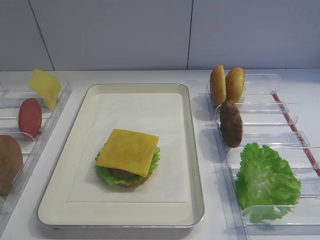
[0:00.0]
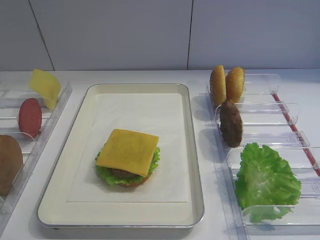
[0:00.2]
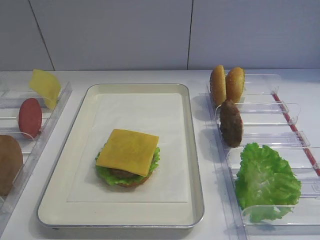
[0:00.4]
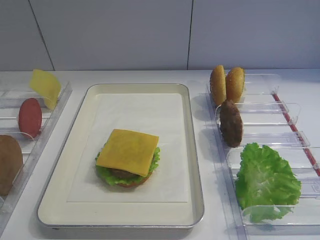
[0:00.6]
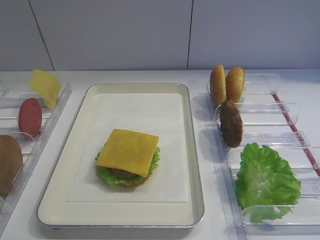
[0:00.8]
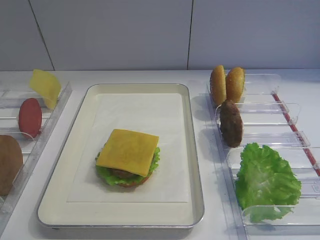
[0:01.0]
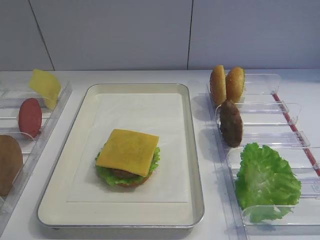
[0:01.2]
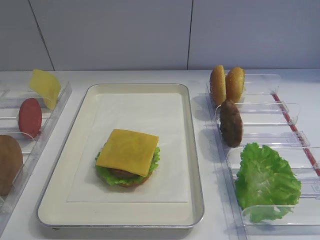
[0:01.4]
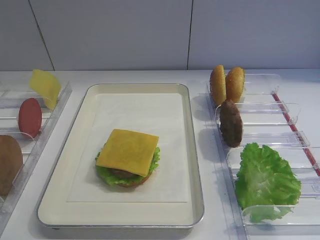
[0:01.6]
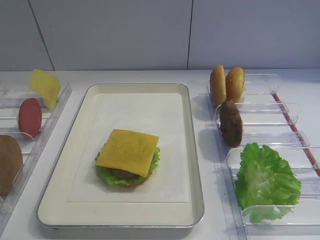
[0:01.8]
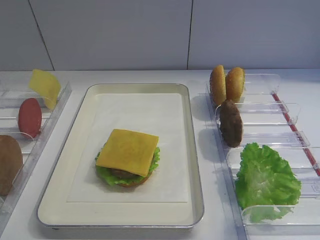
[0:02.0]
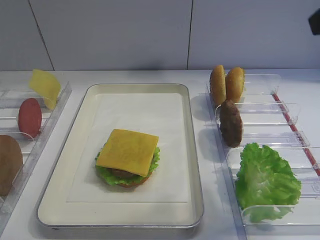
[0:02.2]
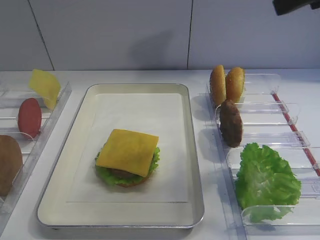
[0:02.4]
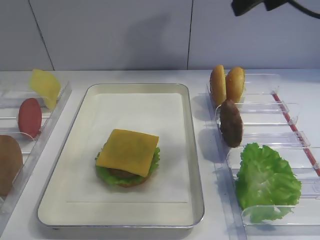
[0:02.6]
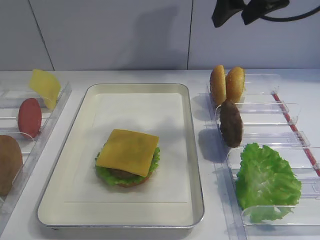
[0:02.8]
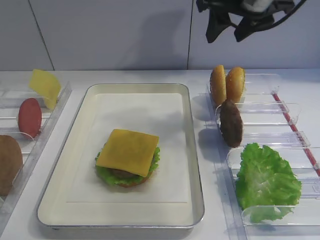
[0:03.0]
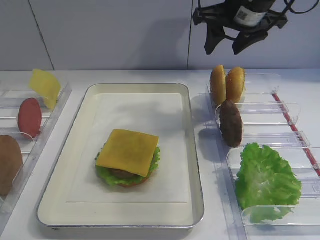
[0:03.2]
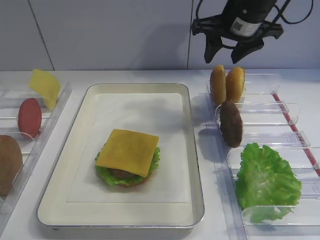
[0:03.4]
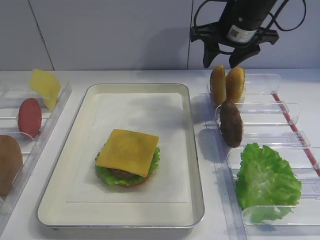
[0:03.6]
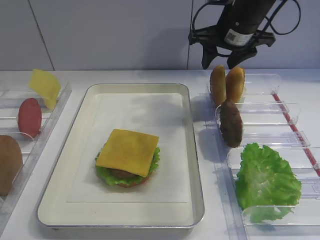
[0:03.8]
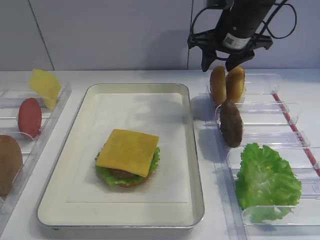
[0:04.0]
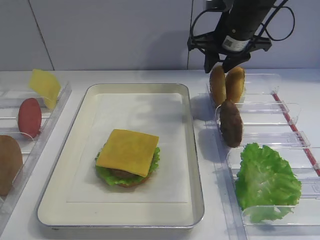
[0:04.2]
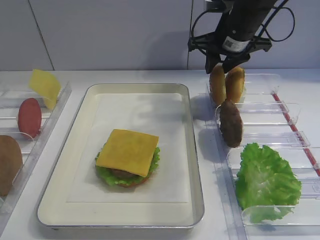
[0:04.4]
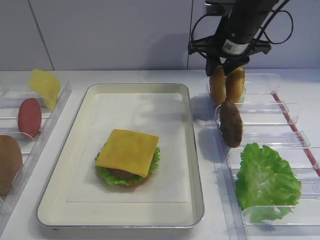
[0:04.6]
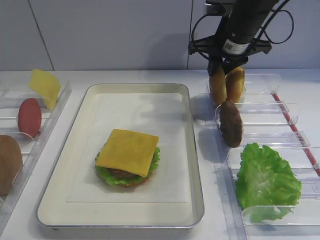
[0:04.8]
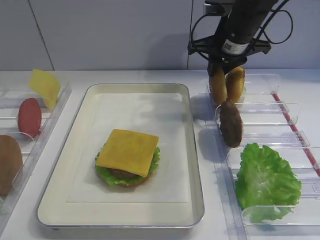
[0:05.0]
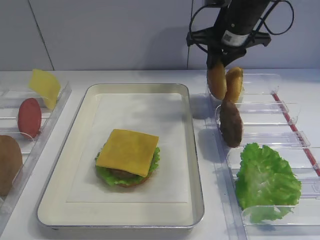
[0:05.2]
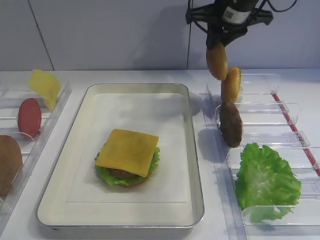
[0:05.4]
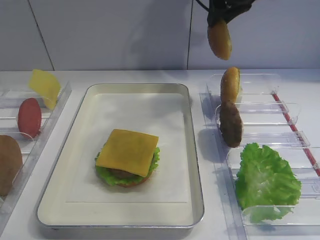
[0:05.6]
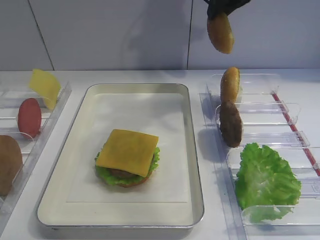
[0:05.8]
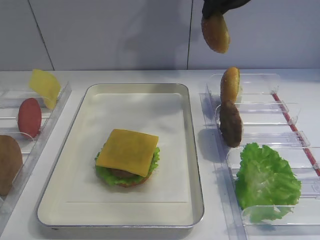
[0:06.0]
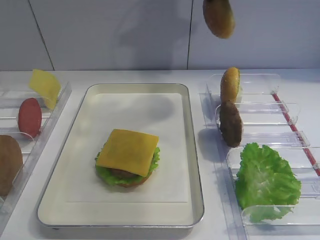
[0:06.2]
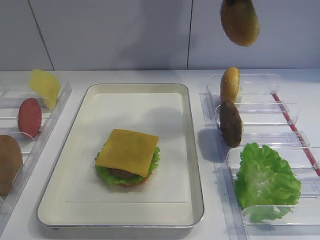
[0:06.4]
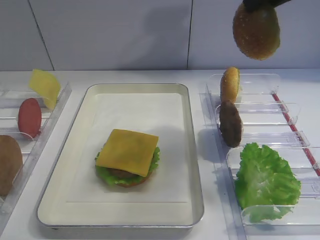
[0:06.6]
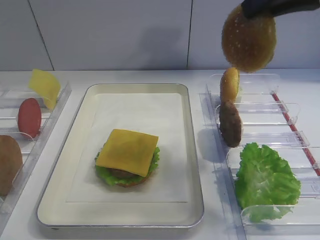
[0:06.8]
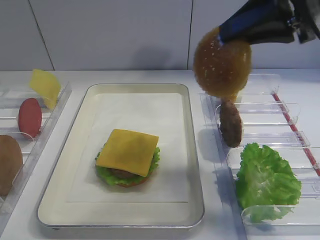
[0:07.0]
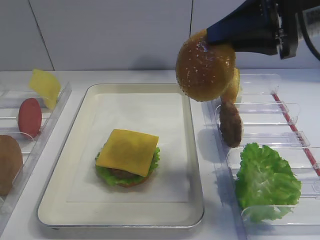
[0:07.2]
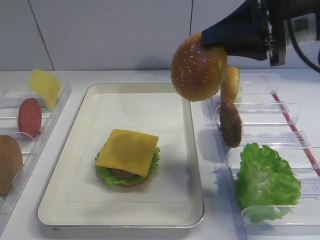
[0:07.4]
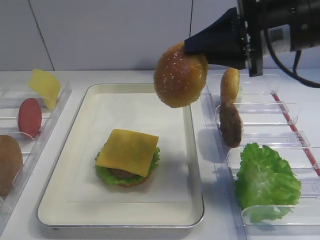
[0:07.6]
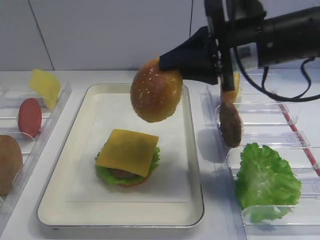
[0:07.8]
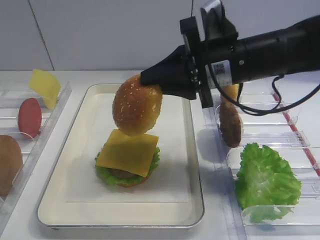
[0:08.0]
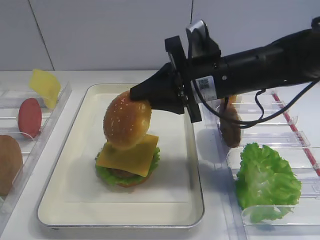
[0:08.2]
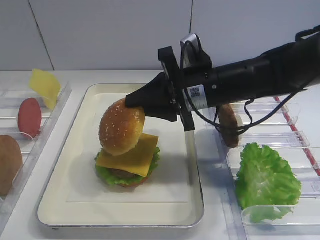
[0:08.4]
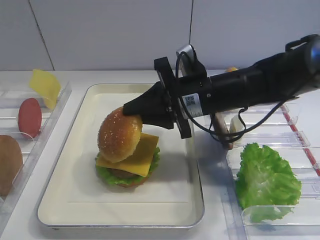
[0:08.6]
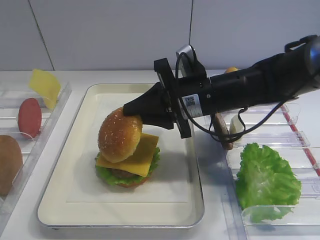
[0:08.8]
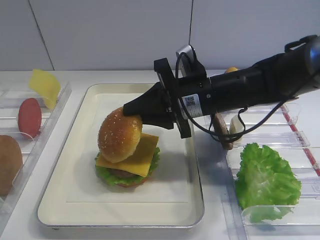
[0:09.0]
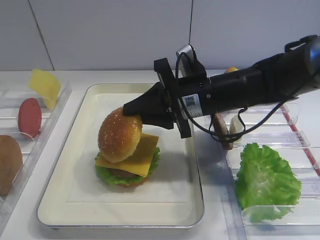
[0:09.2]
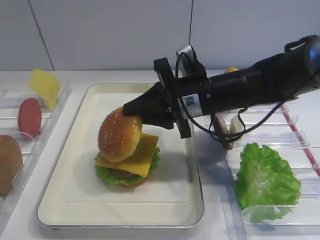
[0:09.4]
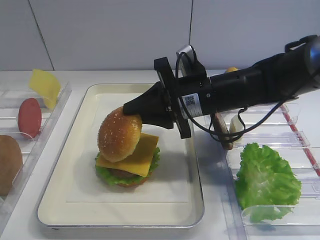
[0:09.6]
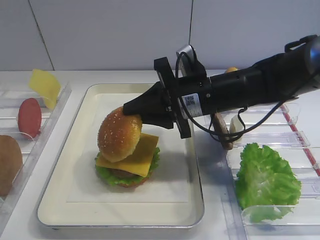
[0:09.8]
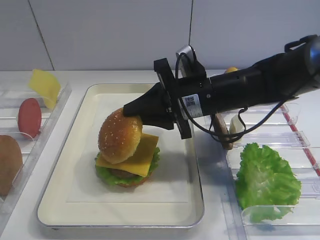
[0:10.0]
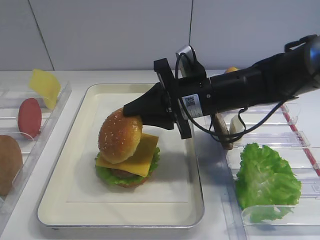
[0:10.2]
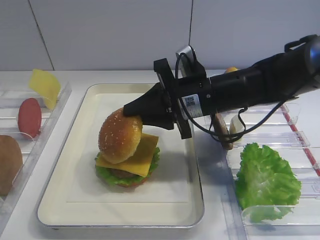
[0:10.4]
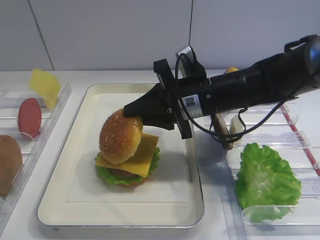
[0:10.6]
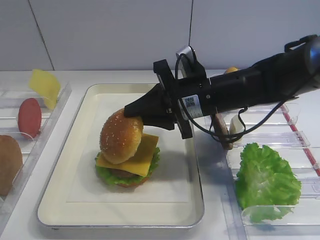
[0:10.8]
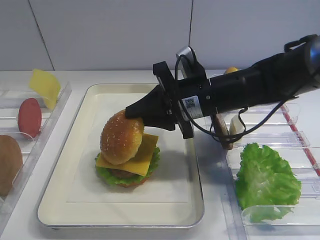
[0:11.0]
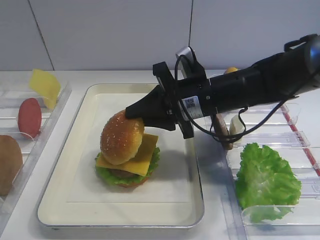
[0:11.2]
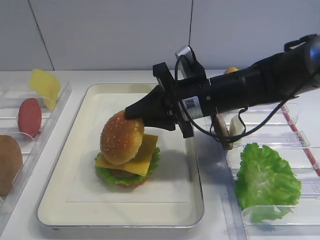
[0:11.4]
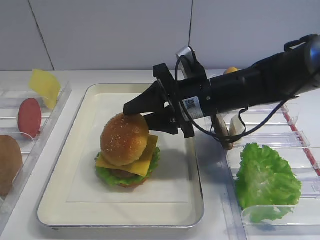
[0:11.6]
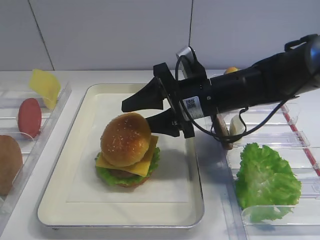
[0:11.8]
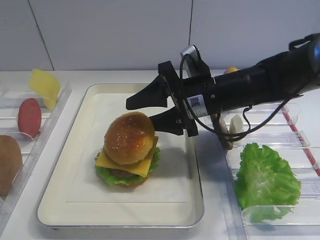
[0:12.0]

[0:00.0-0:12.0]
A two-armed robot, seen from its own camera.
Step, 0:00.0 to 0:05.2: Pick up the hamburger lid with the right gripper.
0:01.6 to 0:03.0: The right gripper travels forward by approximately 35 cm.
0:03.0 to 0:04.4: The right gripper travels downward by about 10 cm.
0:04.4 to 0:06.0: The right gripper is displaced upward by about 10 cm, and closes up.
0:06.0 to 0:07.6: The right gripper heads backward and downward, covering some 15 cm.
0:07.6 to 0:09.0: The right gripper is displaced downward and to the left by roughly 15 cm.
0:09.0 to 0:10.4: Both grippers stay about where they are.
0:10.4 to 0:12.0: The right gripper opens its fingers.

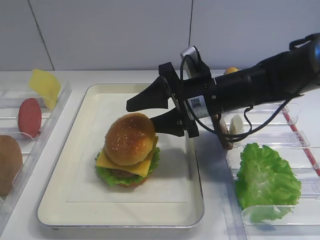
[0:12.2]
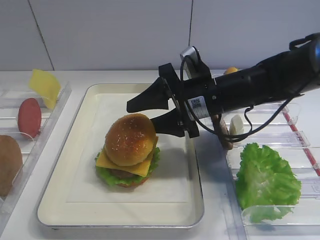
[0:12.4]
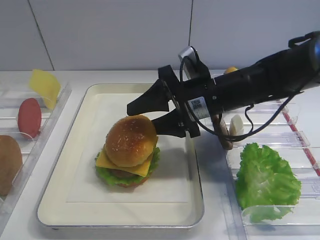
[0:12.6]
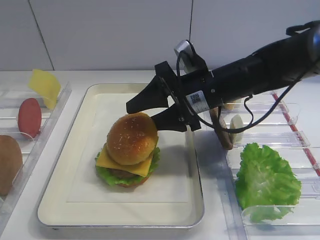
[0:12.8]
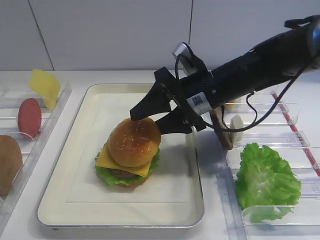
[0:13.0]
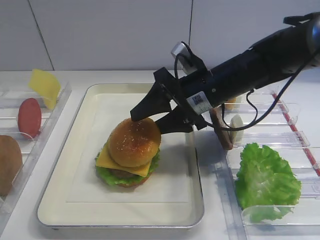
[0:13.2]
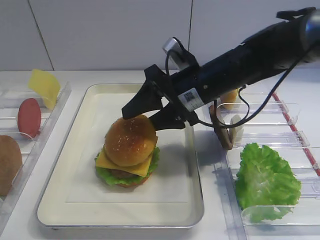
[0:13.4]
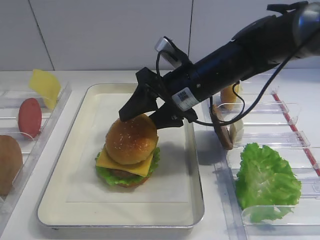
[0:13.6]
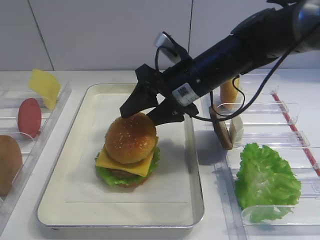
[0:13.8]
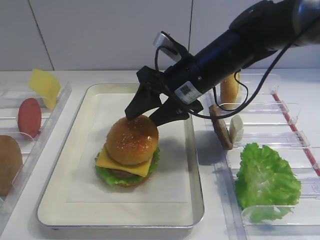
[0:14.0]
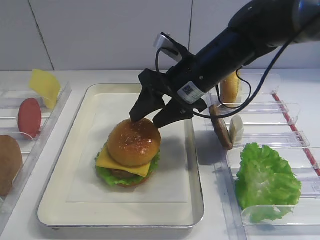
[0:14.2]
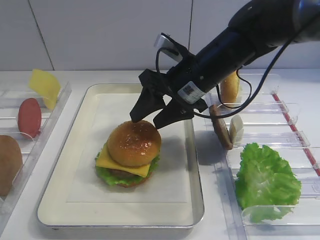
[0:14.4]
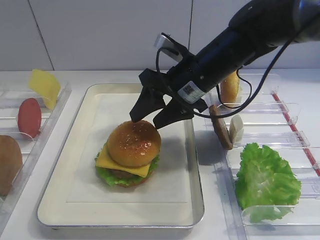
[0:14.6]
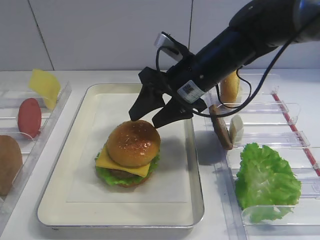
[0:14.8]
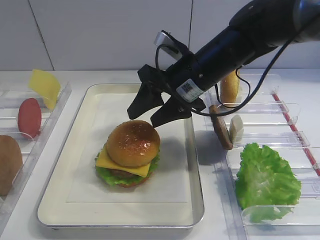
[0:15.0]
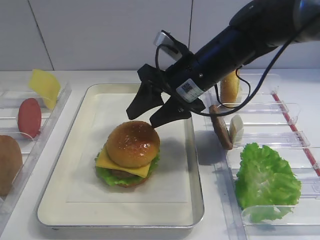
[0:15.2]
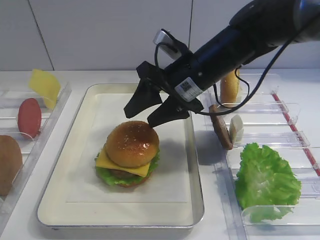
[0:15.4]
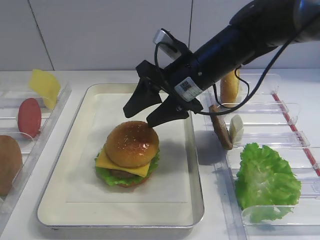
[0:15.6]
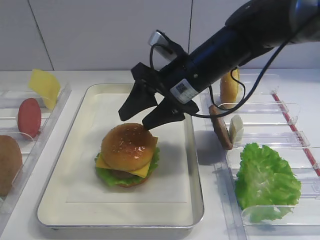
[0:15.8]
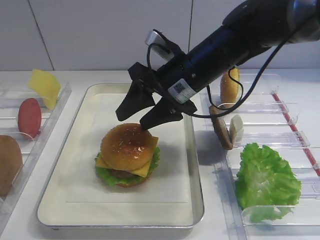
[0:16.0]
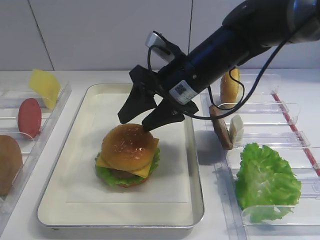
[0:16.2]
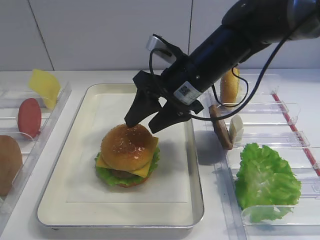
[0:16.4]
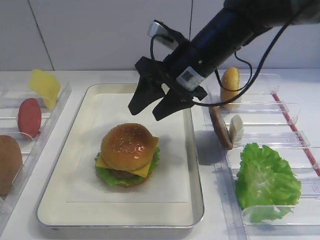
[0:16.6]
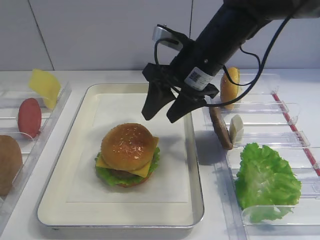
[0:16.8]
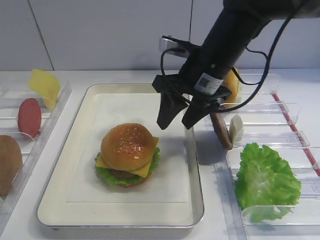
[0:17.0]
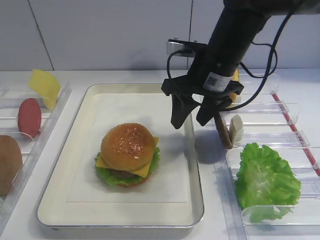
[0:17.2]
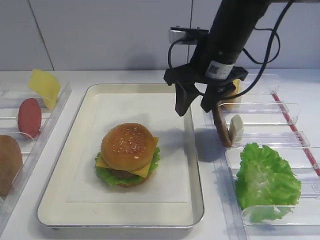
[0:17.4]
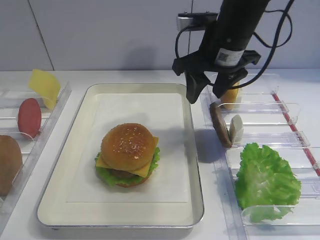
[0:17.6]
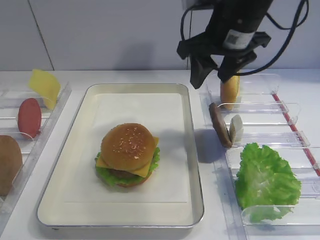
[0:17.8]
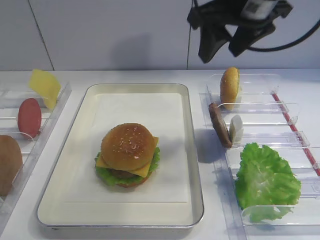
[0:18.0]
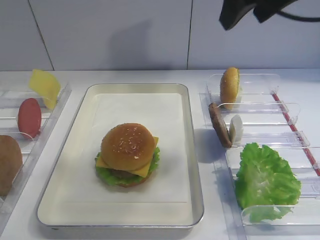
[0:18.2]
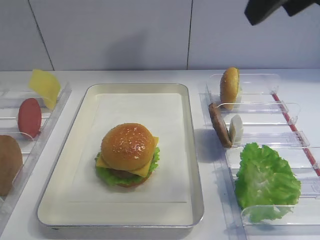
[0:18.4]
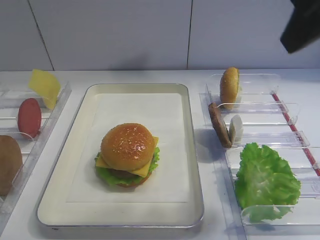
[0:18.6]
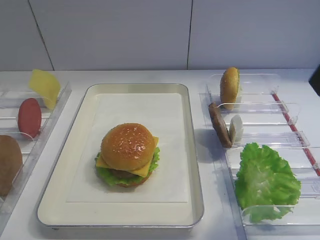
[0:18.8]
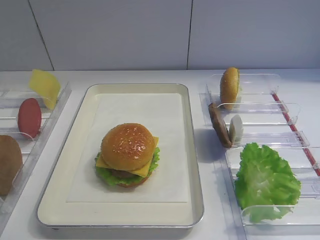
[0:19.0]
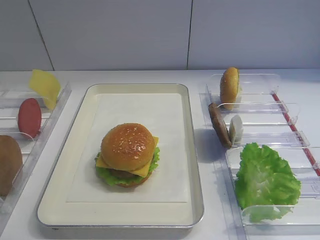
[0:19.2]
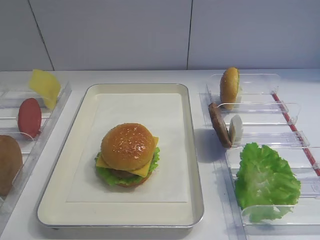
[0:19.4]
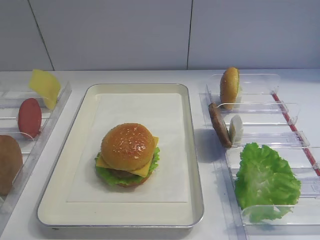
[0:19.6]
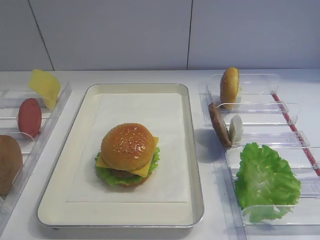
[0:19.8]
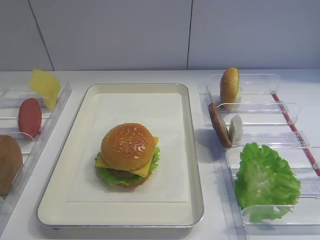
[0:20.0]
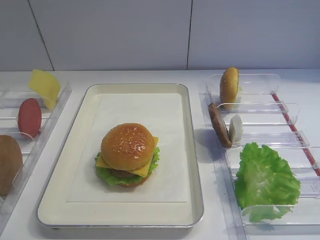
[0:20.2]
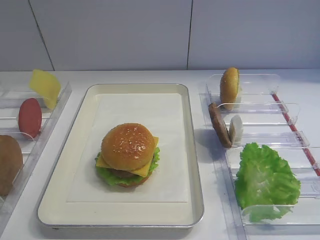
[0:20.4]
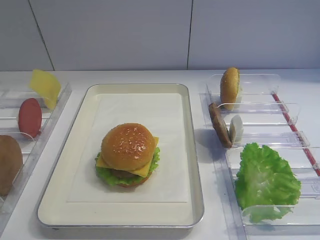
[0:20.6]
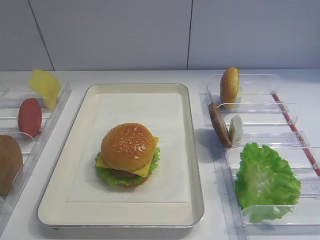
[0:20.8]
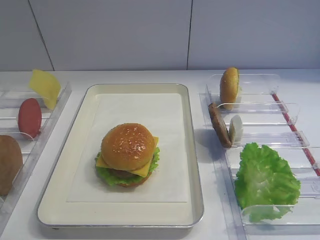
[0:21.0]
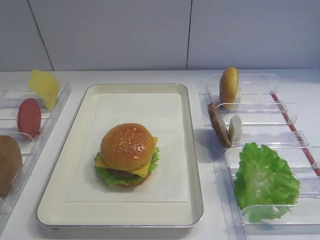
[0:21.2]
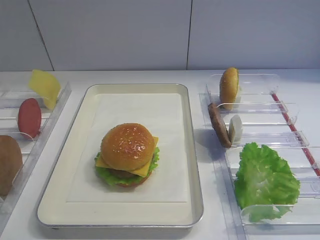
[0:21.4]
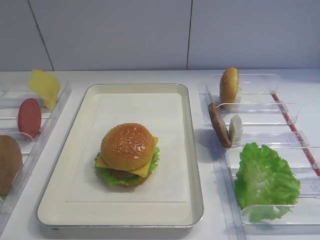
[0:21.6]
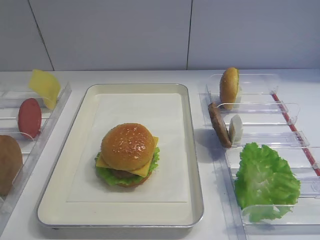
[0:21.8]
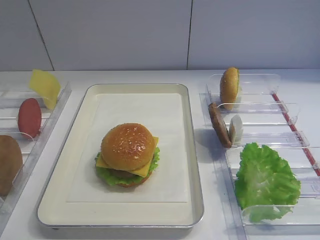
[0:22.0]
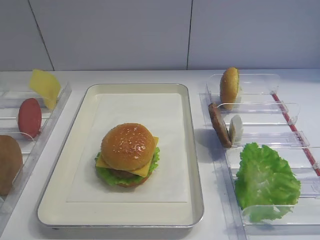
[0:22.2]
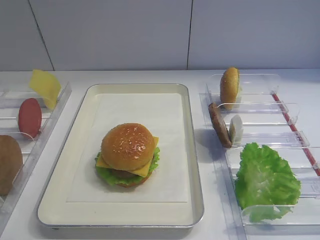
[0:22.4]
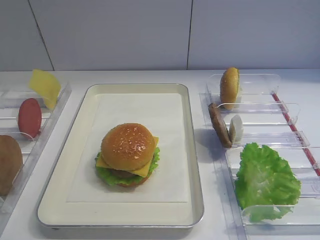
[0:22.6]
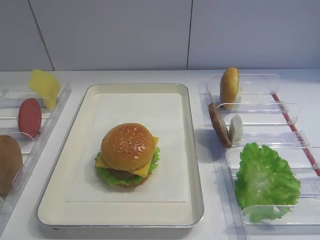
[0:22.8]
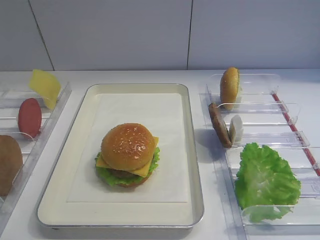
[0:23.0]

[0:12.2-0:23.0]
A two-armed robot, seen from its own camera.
Step, 0:12.2 to 0:14.4: Place the hamburger lid on the cheese slice with the right gripper.
0:13.8 to 0:16.8: The grippers make only small movements.
0:16.8 to 0:18.4: The right gripper goes some 25 cm upward, backward and to the right.
0:18.4 to 0:20.0: The right gripper is displaced backward, downward and to the right by some 30 cm; the left gripper closes.
